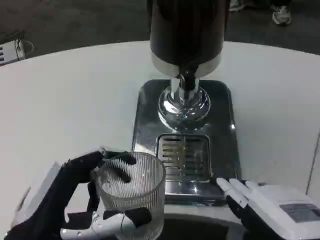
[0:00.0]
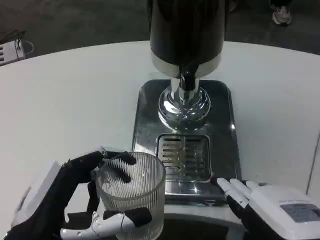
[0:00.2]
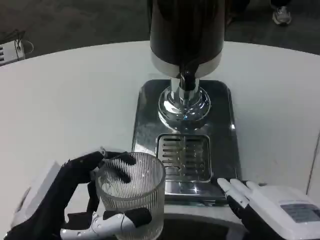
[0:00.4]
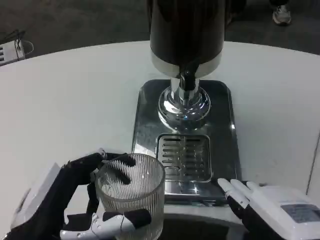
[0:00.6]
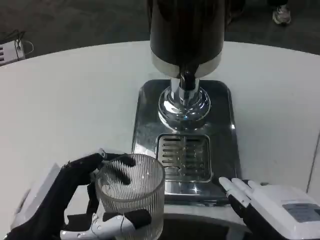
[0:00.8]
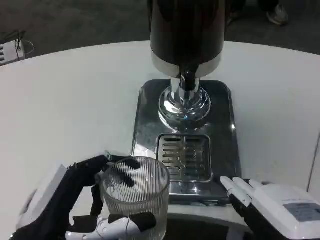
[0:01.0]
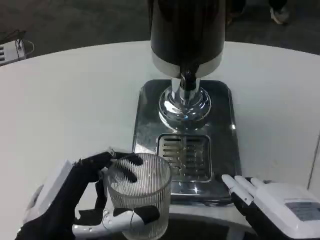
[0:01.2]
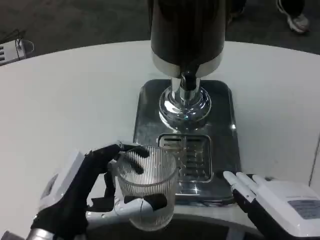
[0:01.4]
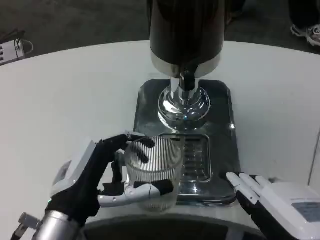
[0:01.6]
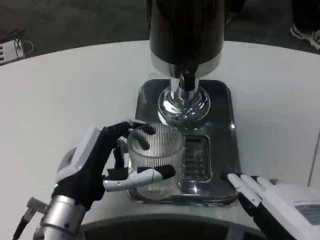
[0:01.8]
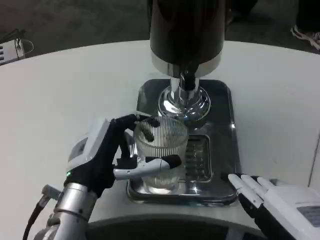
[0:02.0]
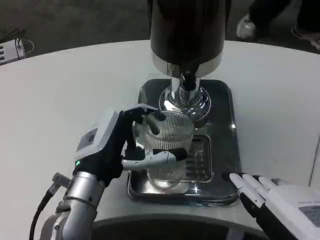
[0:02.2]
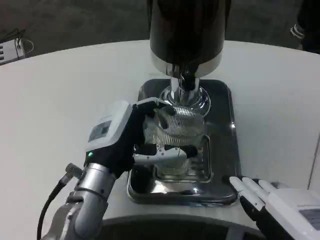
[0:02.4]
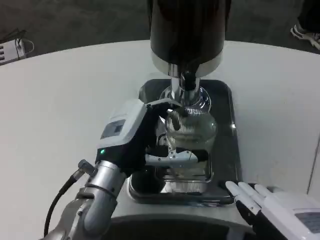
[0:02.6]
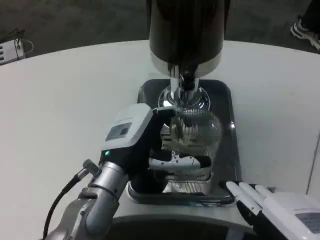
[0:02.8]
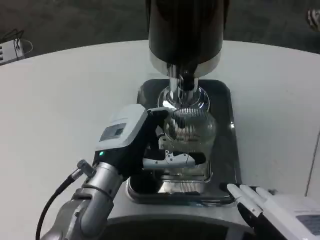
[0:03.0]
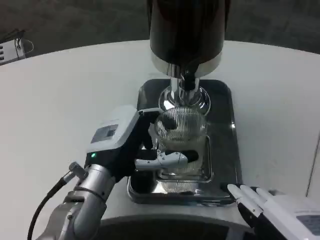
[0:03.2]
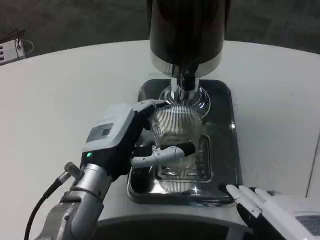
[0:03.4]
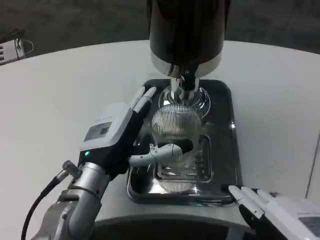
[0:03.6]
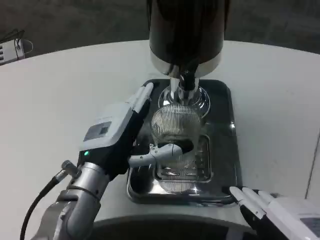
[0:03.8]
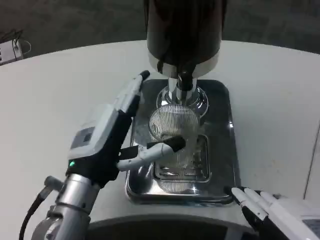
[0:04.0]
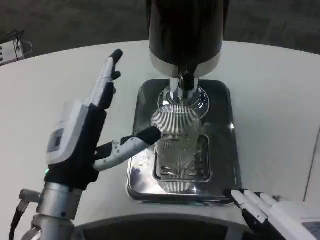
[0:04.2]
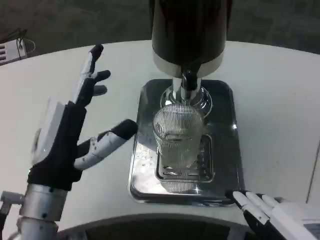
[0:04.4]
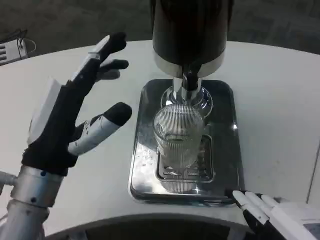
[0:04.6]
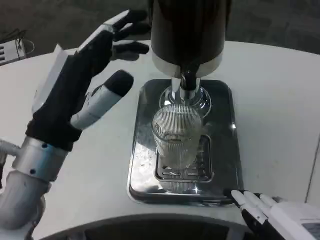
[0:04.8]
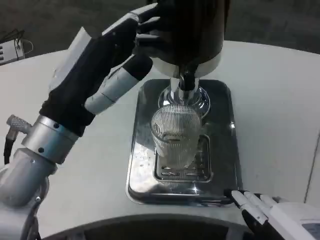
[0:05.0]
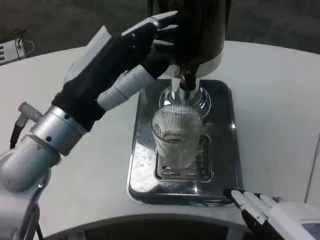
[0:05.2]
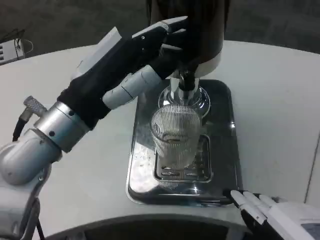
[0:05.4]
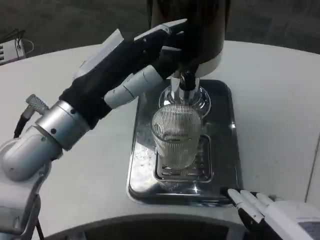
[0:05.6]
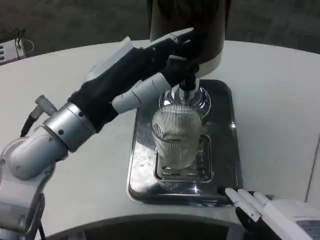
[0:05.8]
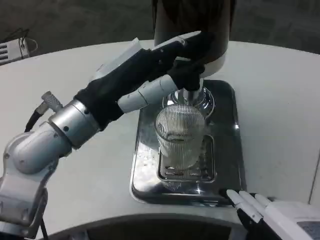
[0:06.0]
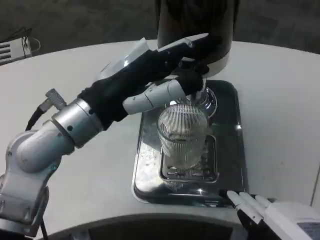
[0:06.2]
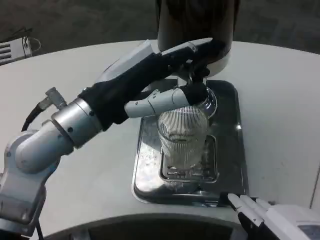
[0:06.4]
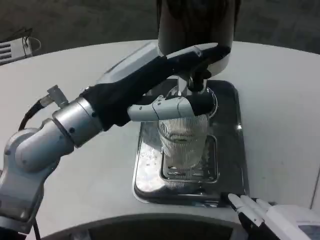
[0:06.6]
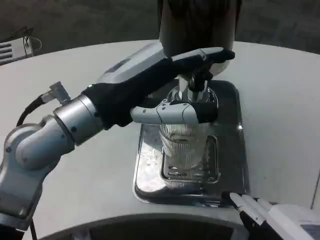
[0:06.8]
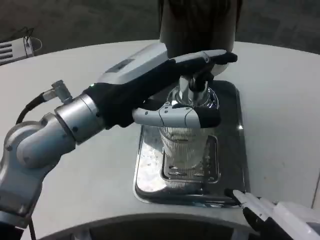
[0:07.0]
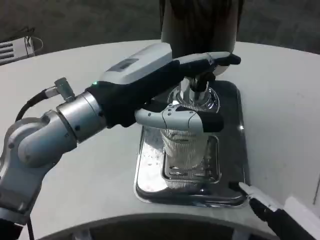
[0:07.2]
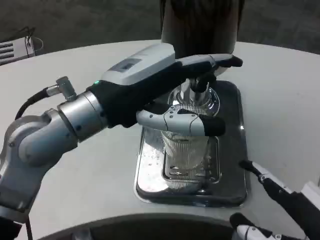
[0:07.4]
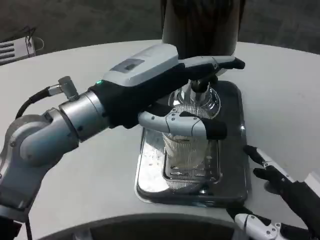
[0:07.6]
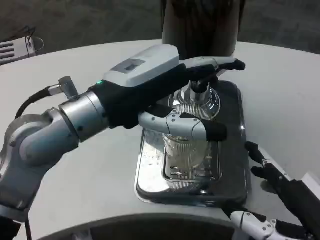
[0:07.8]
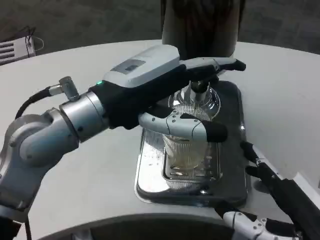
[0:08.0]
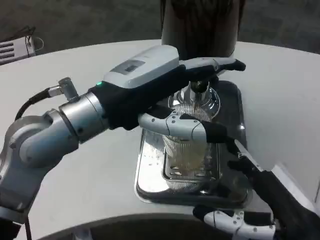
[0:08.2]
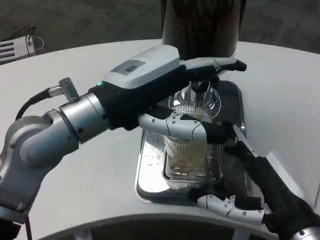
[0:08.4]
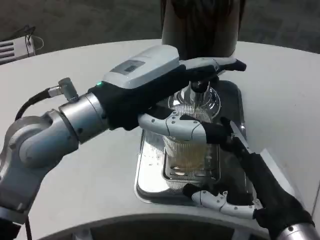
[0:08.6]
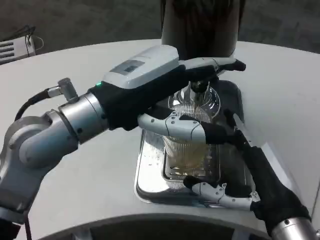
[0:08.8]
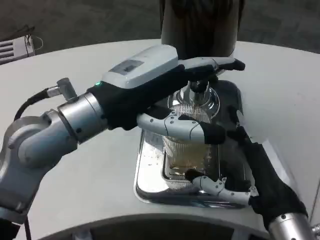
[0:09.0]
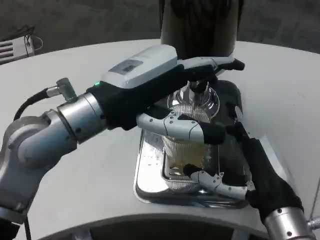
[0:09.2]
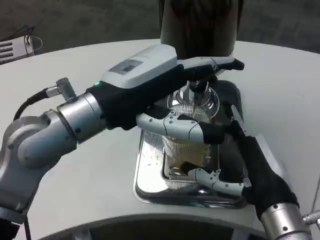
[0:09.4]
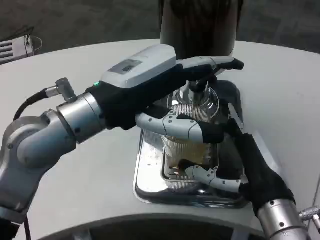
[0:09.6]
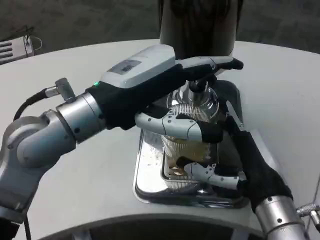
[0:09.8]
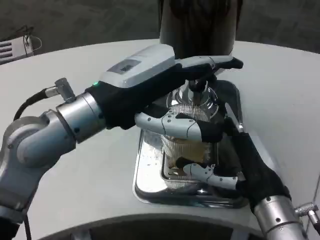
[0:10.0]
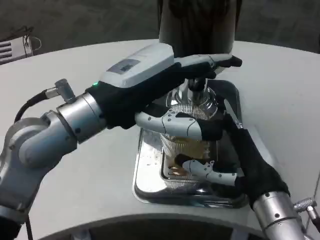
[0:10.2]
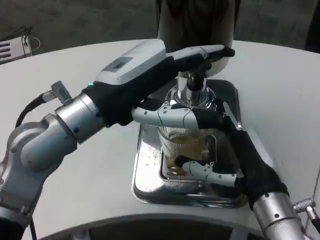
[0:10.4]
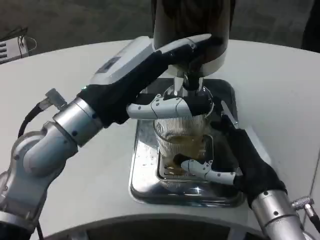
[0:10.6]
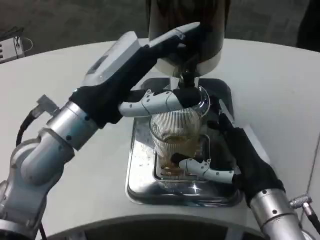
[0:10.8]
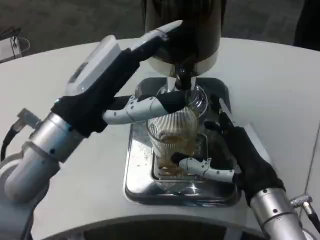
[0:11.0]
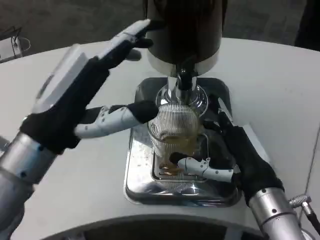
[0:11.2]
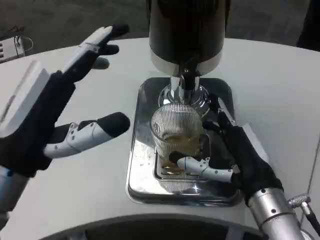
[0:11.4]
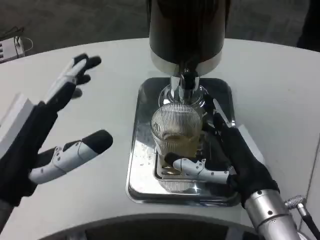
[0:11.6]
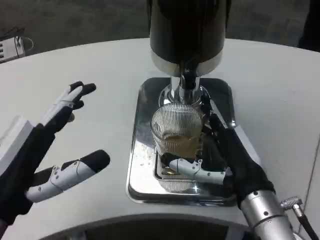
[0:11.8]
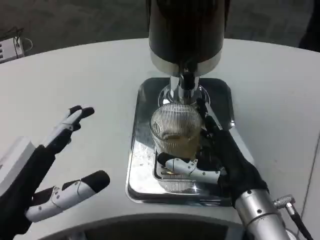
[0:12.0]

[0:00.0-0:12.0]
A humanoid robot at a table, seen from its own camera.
Task of the whole recording: Grasp the cup under the faucet to collect the drink, then remove the cup.
0:00.0 to 0:01.6: The left hand shifts some 5 cm forward.
0:01.6 to 0:03.0: The left hand travels forward by roughly 5 cm.
0:03.0 to 0:04.4: The left hand moves to the left, some 5 cm.
0:04.4 to 0:06.0: The left hand shifts approximately 10 cm upward.
0:07.6 to 0:09.0: The right hand heads forward and to the left, covering roughly 10 cm.
0:10.4 to 0:12.0: The left hand moves backward, downward and to the left, roughly 20 cm.

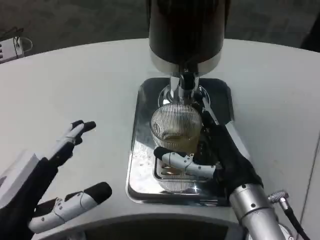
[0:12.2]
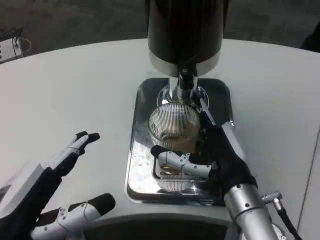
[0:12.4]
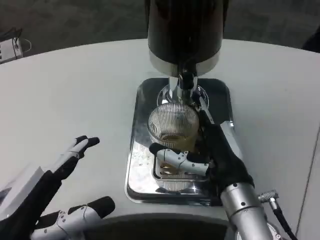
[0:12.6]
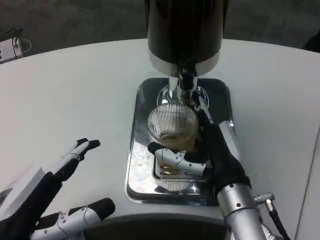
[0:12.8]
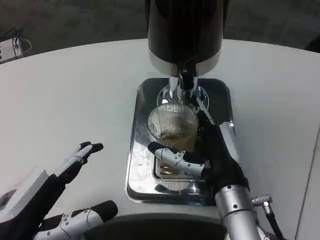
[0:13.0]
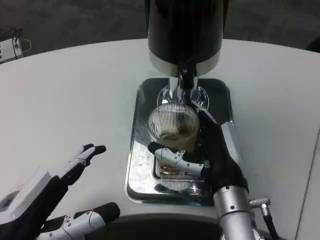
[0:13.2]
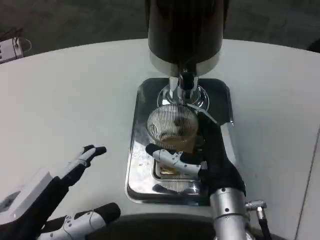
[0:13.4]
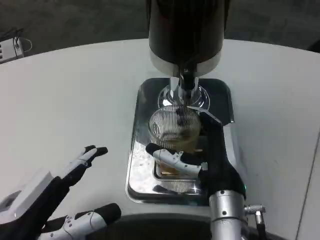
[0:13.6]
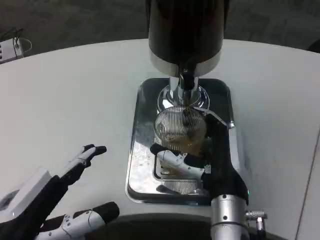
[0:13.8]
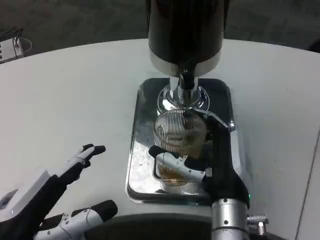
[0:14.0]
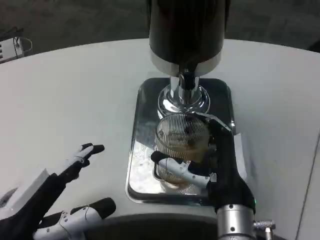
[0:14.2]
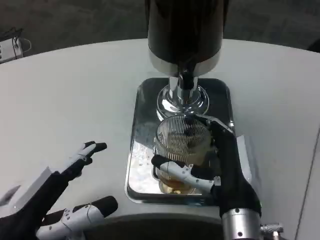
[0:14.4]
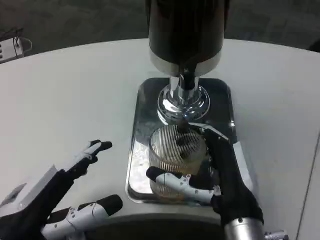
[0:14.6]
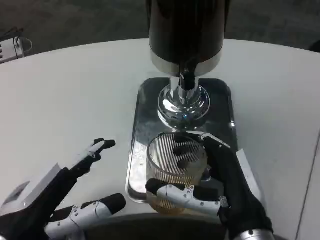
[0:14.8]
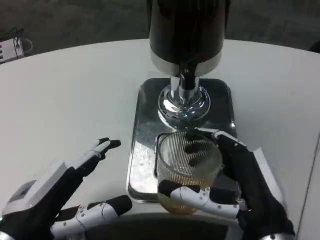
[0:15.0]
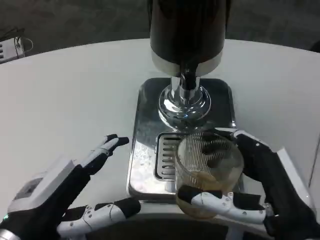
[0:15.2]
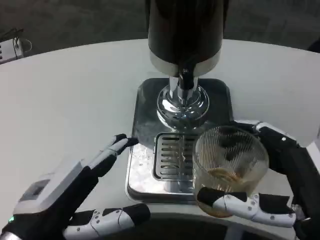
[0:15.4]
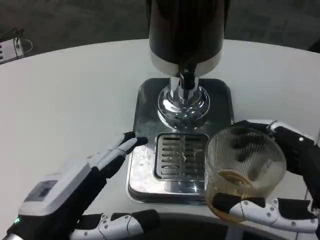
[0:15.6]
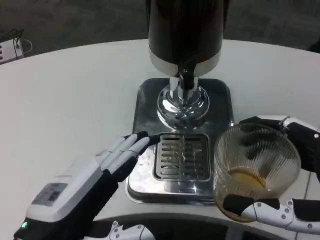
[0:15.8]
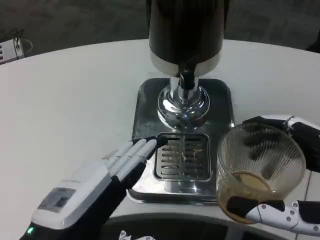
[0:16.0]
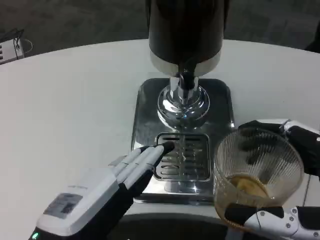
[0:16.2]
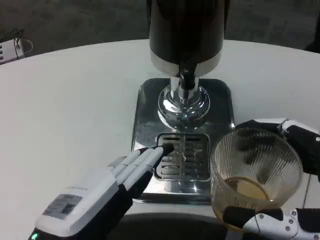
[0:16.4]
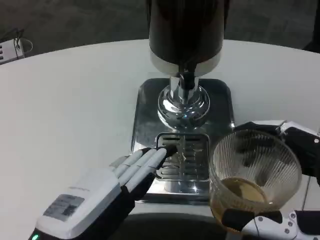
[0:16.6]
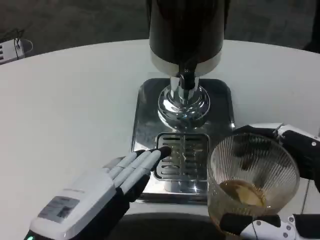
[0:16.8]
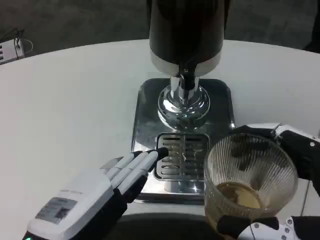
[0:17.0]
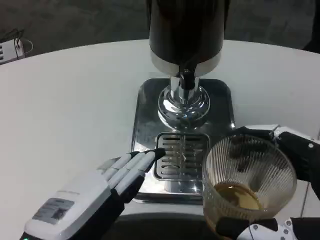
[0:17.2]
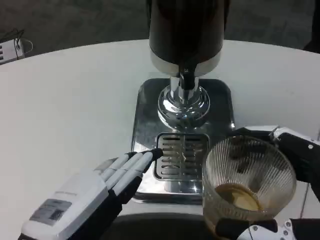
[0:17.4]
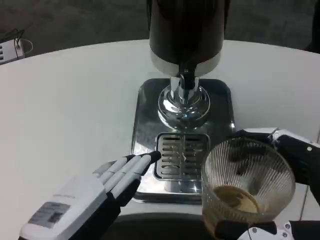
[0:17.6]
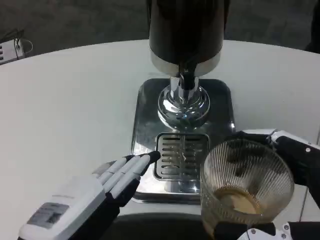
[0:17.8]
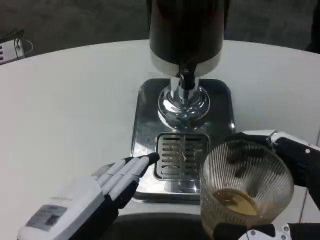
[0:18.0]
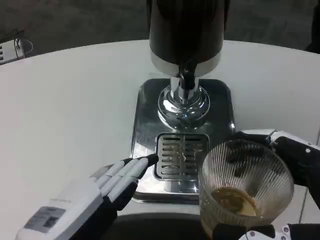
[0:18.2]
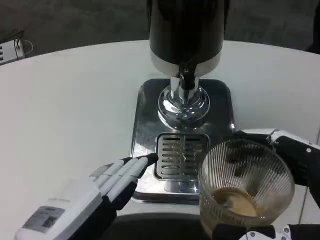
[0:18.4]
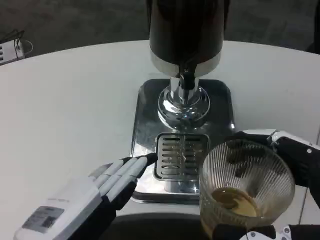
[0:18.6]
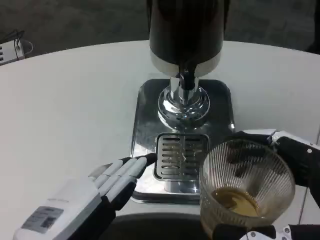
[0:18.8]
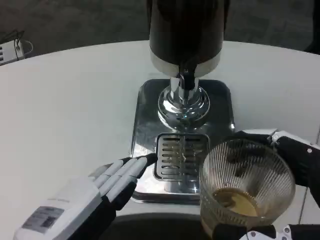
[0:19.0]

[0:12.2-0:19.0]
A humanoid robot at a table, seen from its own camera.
Task of the whole recording: Grasp the cup under the faucet to collect the drink, then remove the cup.
0:12.2 to 0:13.6: The hands stay close to where they were, moving slightly.
0:13.6 to 0:15.0: The right hand shifts some 10 cm backward and to the right.
0:15.0 to 0:16.2: The right hand heads to the right and backward, covering about 10 cm; the left hand changes place by roughly 5 cm.
0:16.2 to 0:17.6: There are only small adjustments of the hands.
0:17.6 to 0:19.0: The two hands keep their place.

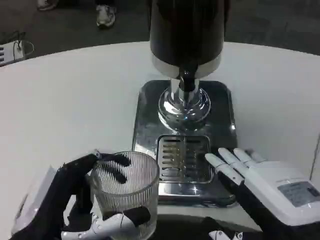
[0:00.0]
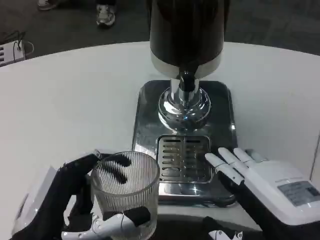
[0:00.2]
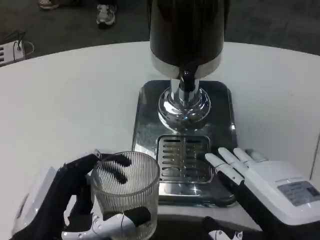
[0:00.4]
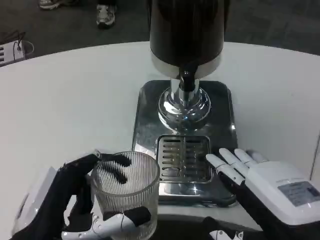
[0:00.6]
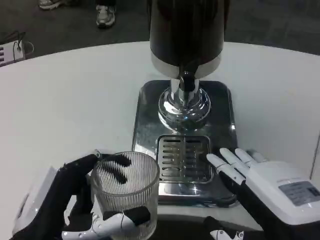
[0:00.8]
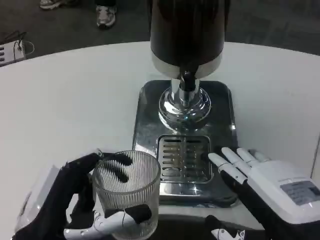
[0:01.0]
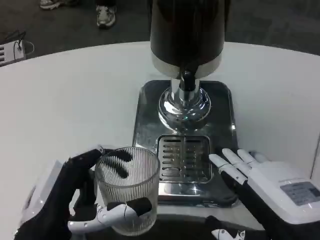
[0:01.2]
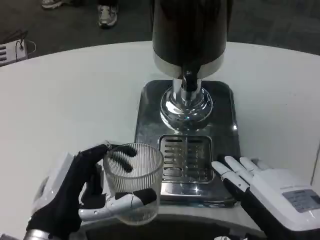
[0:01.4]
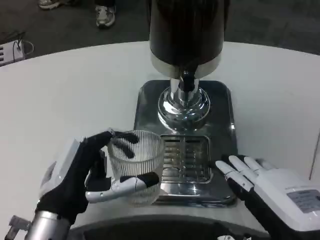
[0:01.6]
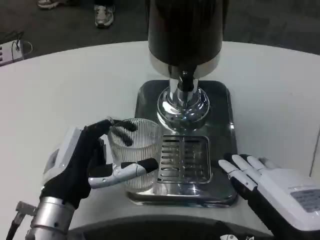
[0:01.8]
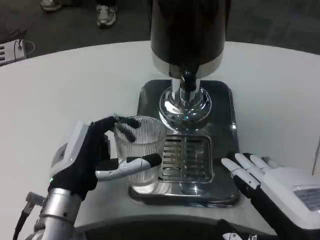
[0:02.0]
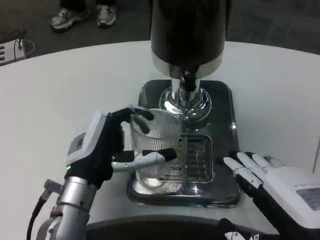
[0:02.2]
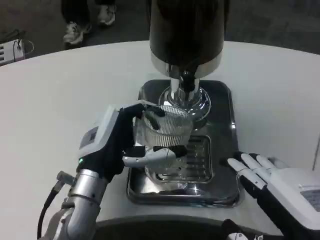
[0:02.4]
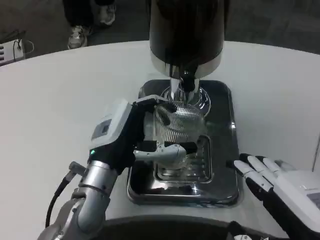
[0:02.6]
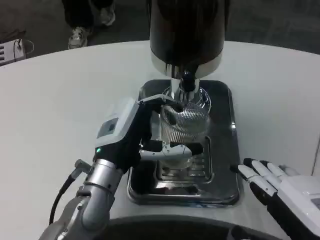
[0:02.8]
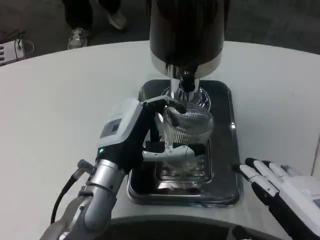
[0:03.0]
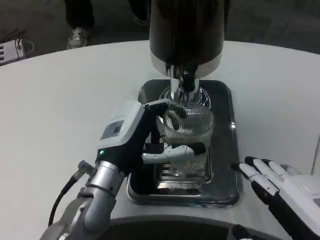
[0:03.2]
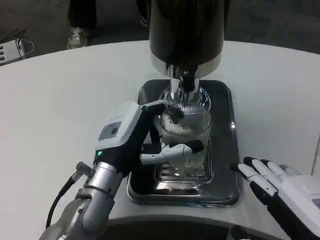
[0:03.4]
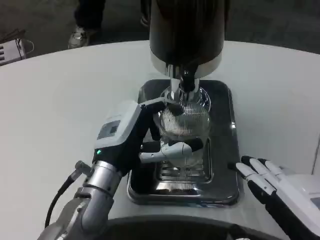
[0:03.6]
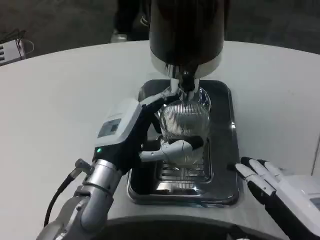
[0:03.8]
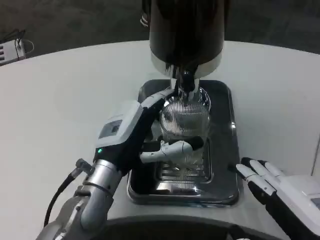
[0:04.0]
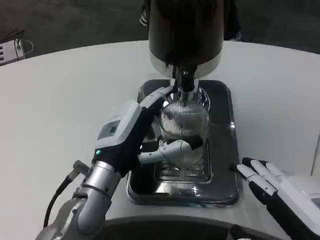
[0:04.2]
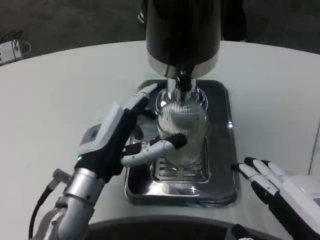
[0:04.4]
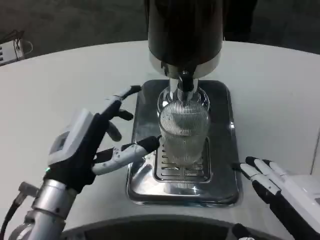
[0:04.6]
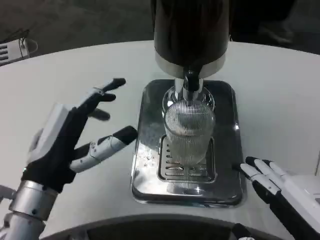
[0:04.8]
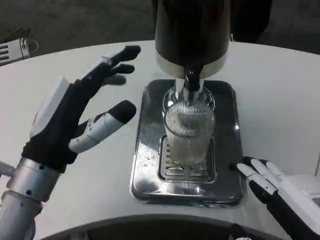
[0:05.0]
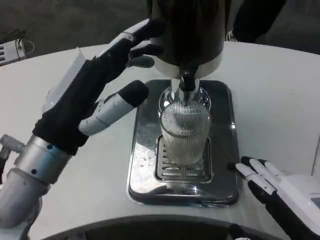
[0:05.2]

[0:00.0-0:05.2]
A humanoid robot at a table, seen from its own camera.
Task of the whole recording: Grasp the cup under the faucet to collect the drink, then remove the cup.
0:00.0 to 0:01.8: The left hand heads forward, covering some 10 cm.
0:01.8 to 0:03.4: The left hand goes approximately 10 cm forward and to the right.
0:03.4 to 0:05.2: The left hand travels upward, backward and to the left by roughly 10 cm.
